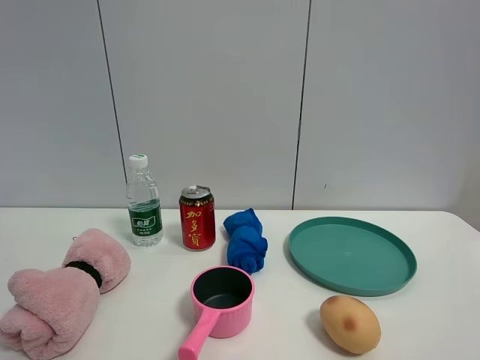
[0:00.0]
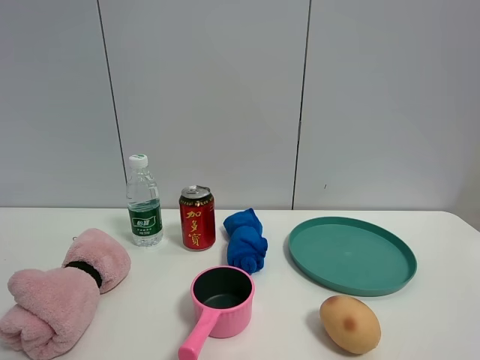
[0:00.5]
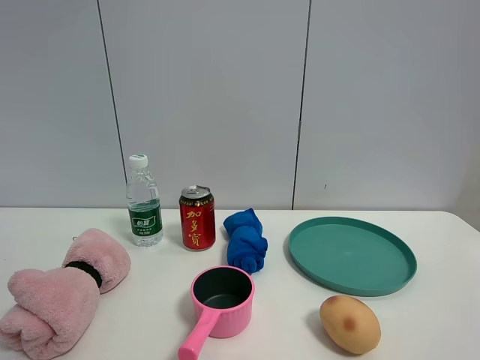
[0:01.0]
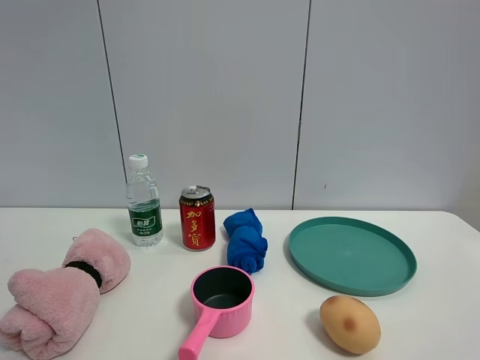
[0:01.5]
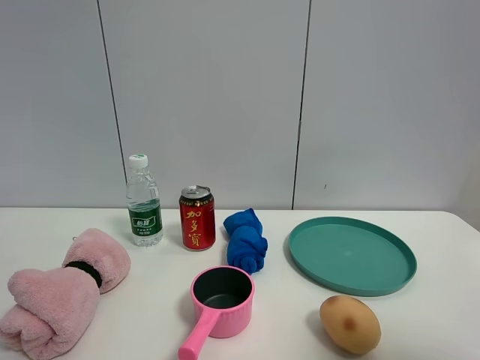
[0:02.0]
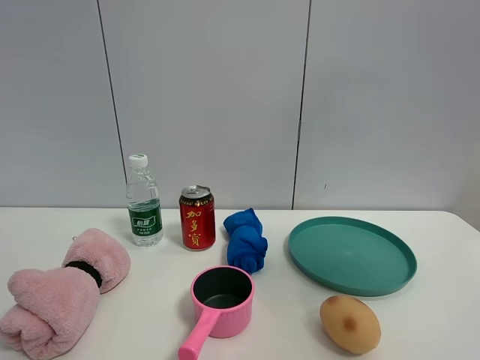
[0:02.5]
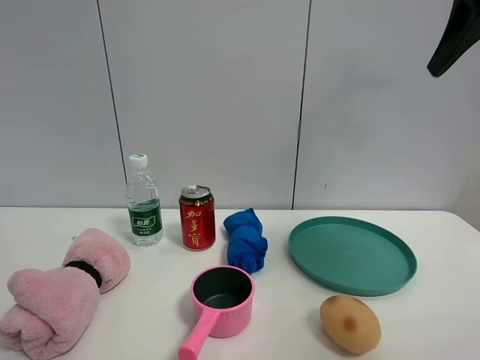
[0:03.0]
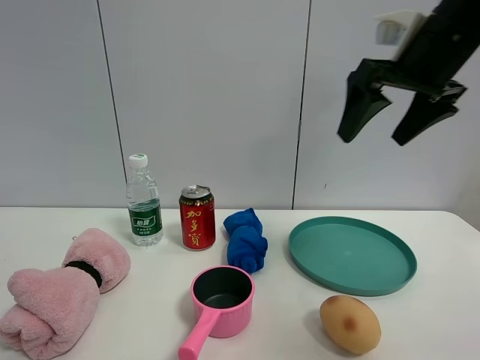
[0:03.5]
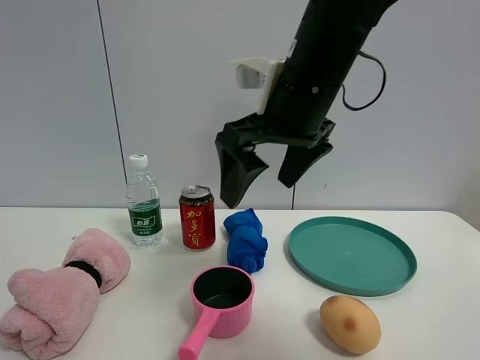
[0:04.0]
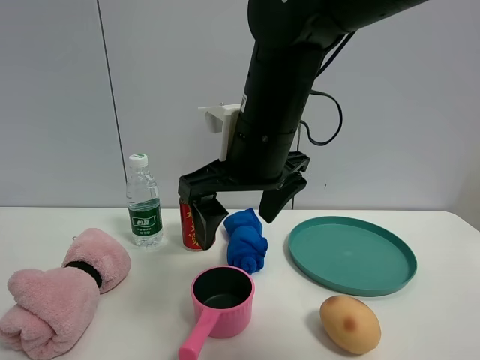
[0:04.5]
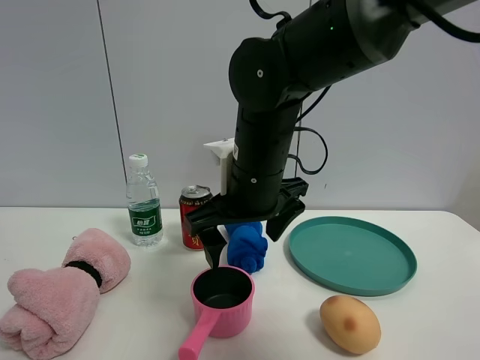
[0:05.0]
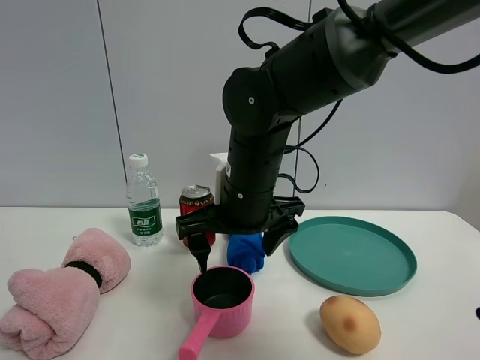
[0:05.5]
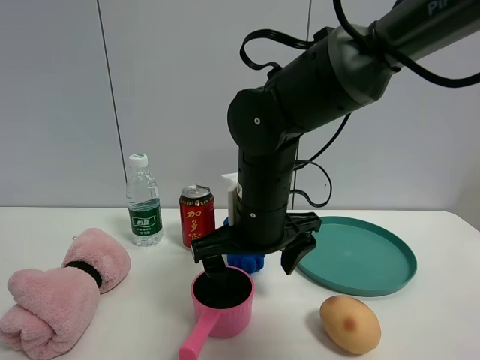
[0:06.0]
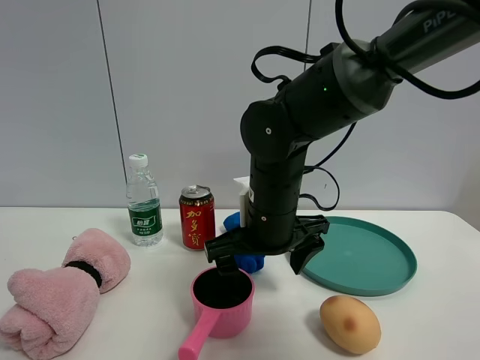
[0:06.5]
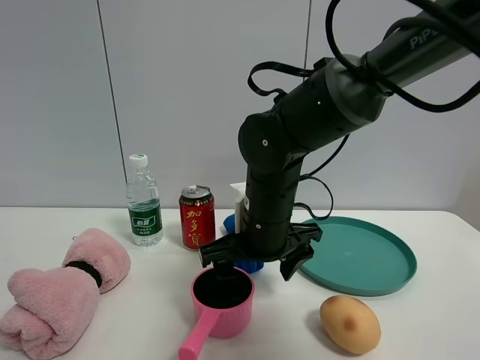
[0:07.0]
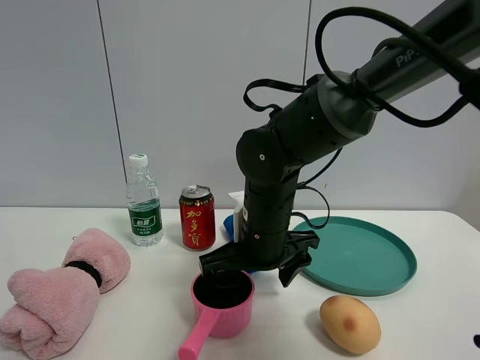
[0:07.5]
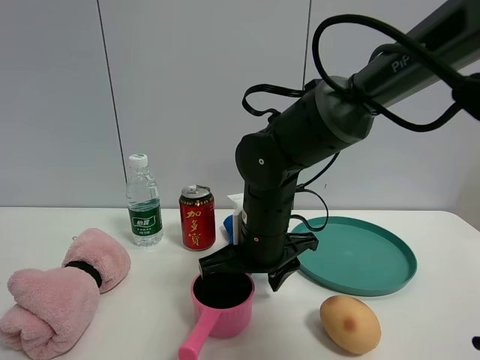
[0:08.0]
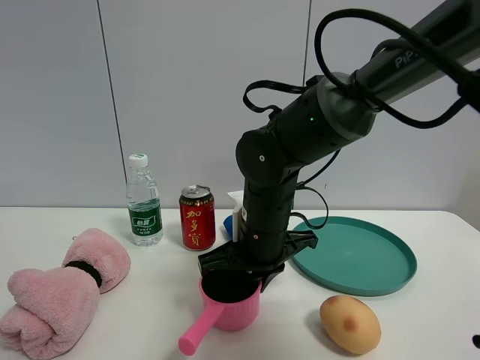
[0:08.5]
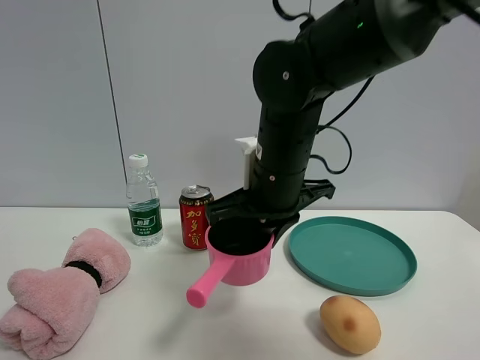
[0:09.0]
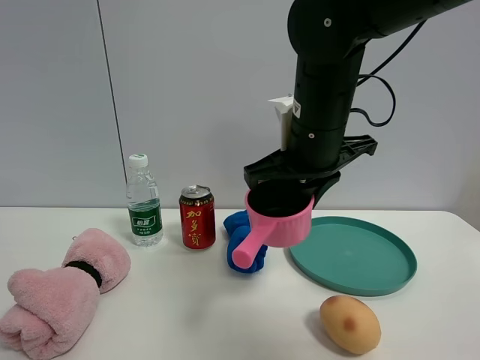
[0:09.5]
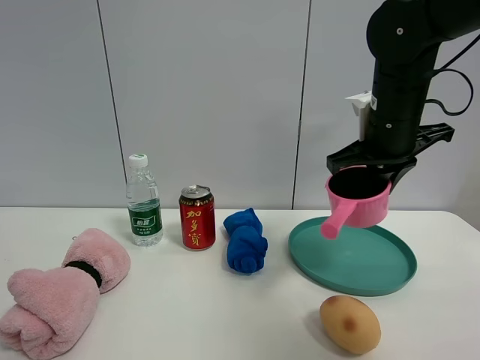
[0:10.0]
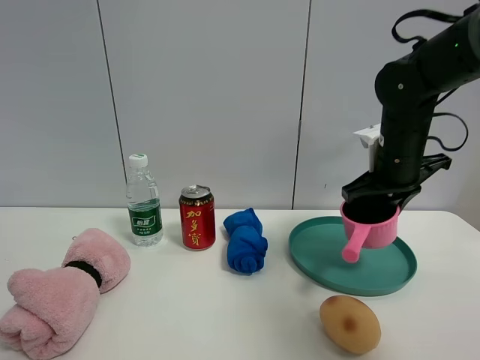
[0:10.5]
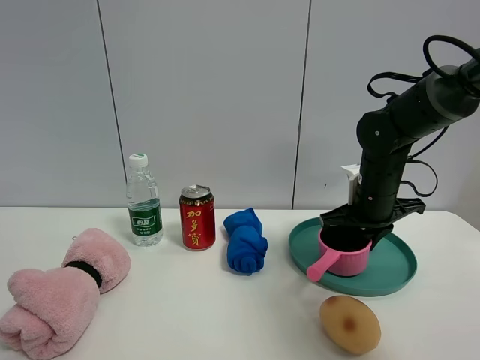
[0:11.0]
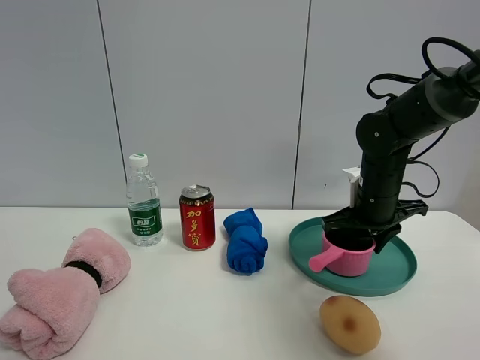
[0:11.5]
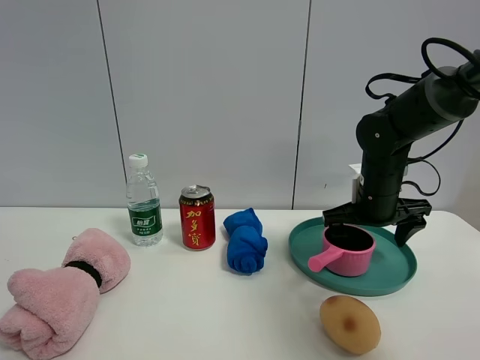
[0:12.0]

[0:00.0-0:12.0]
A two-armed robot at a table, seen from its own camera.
Task of the whole recording: the gripper move the object.
Step, 0:00.0 to 0:08.0: Grasp the pink pot with the right gripper.
Step, 0:08.5 to 0:12.0: Place the pink pot into the green plate with the right gripper.
0:00.0 to 0:02.0: The right gripper shifts roughly 10 cm upward and forward.
0:02.0 to 0:04.0: The right gripper heads to the left and forward, covering roughly 35 cm.
0:04.0 to 0:06.0: The right gripper shifts about 15 cm downward.
0:06.0 to 0:08.0: The right gripper closes.
0:08.0 to 0:10.0: The right gripper travels to the right and upward by approximately 20 cm, and closes.
0:10.0 to 0:12.0: The right gripper heads downward and forward, covering roughly 15 cm, and opens up.

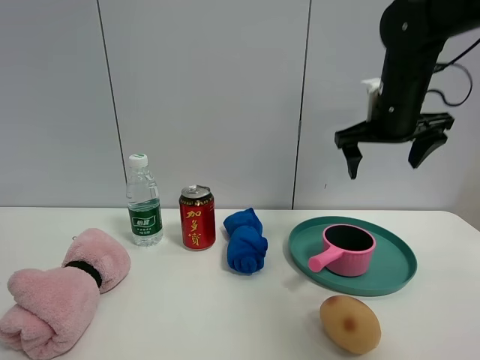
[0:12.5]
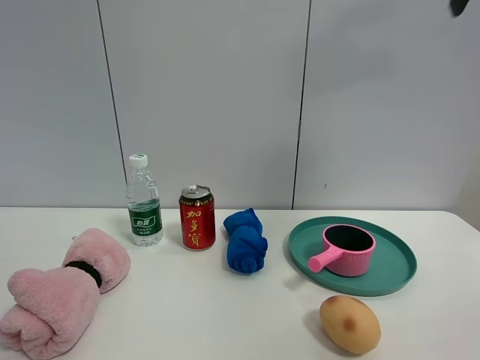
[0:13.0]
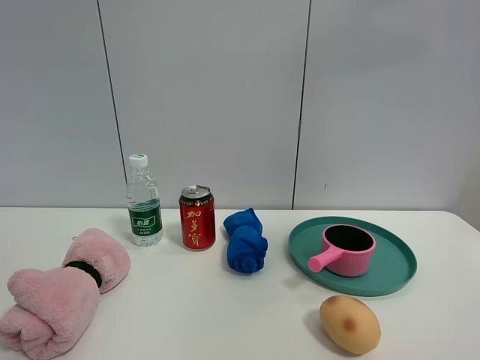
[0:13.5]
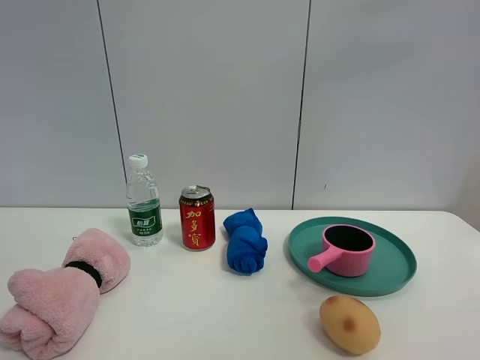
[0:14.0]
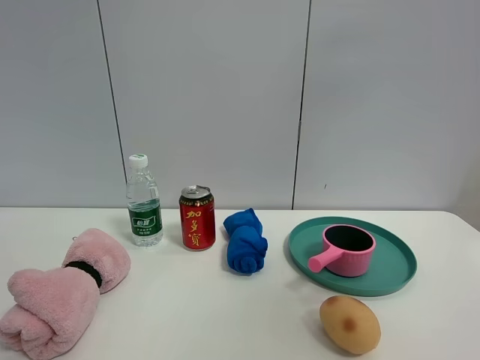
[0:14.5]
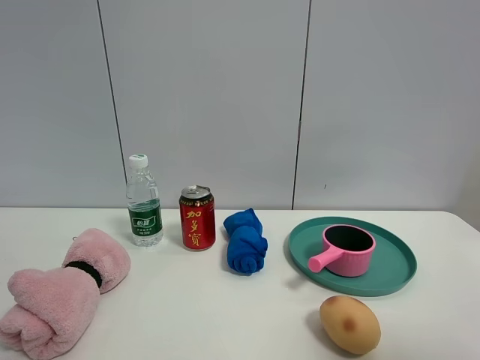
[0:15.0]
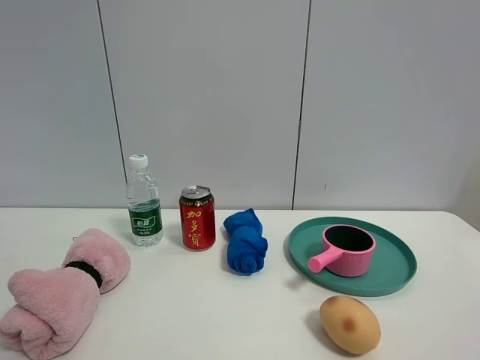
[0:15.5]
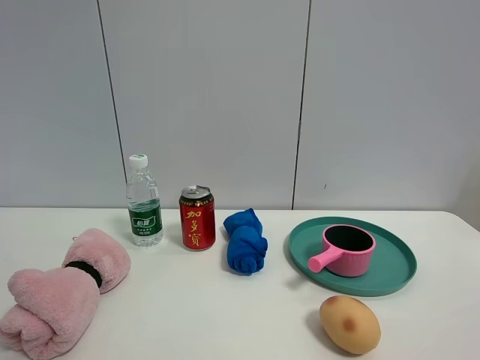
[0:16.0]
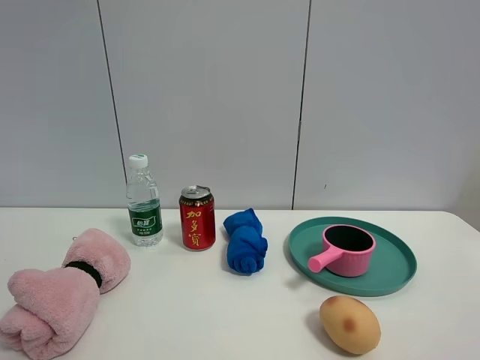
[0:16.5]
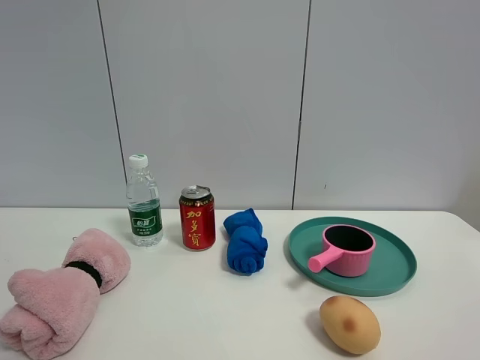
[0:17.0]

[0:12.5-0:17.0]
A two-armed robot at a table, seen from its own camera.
Task of the whole recording: the gripper move the object.
0:12.5 to 0:14.5: The right gripper travels backward and upward by approximately 40 cm.
0:14.5 to 0:17.0: The right gripper moves downward, about 25 cm.

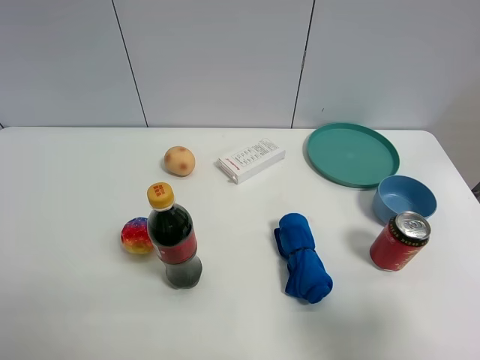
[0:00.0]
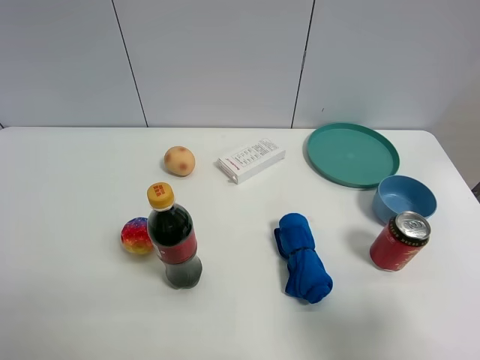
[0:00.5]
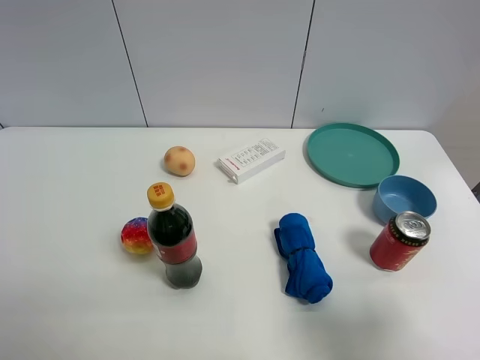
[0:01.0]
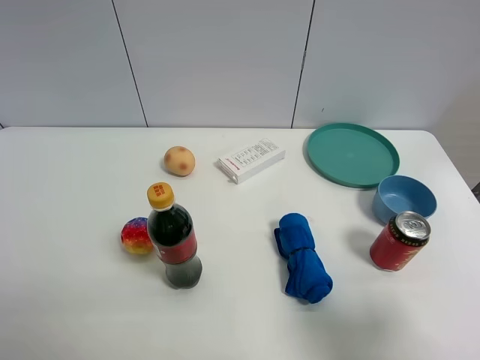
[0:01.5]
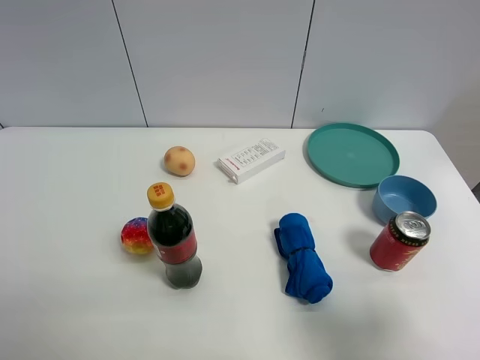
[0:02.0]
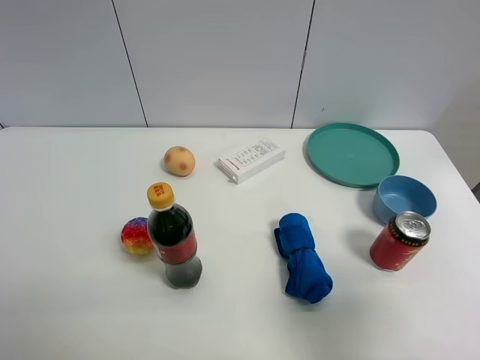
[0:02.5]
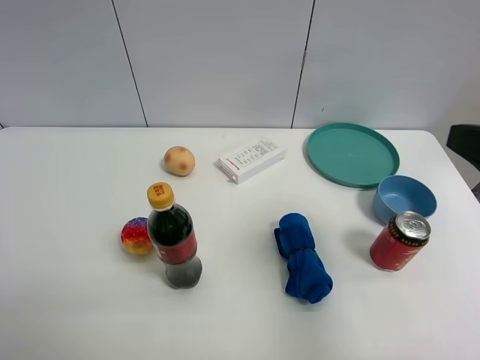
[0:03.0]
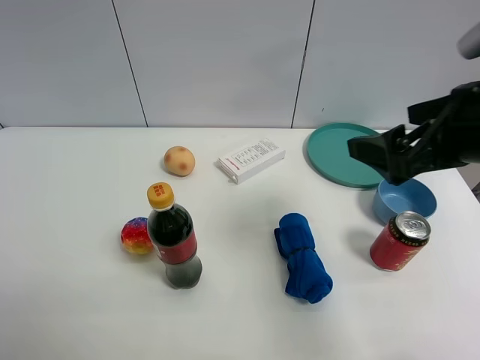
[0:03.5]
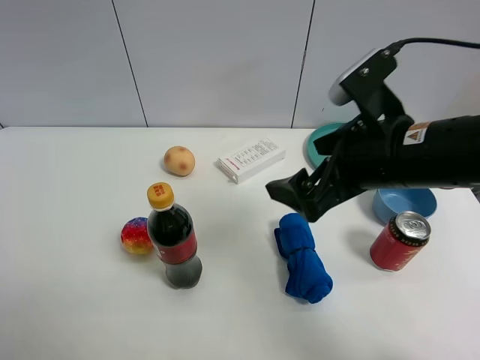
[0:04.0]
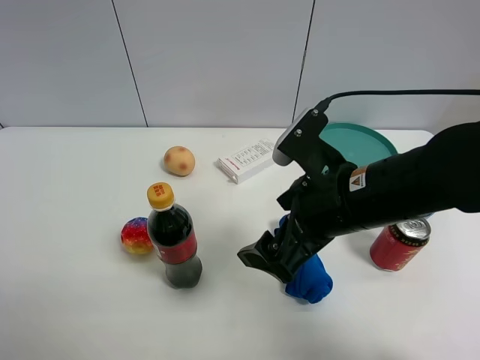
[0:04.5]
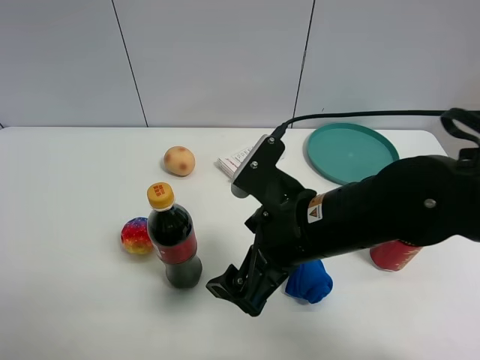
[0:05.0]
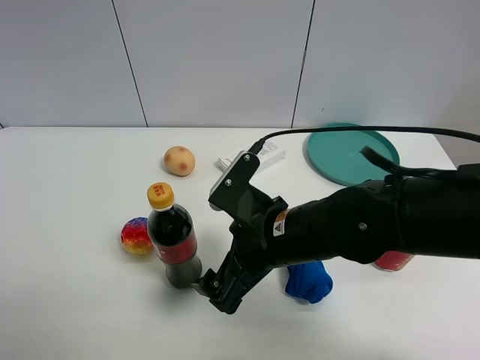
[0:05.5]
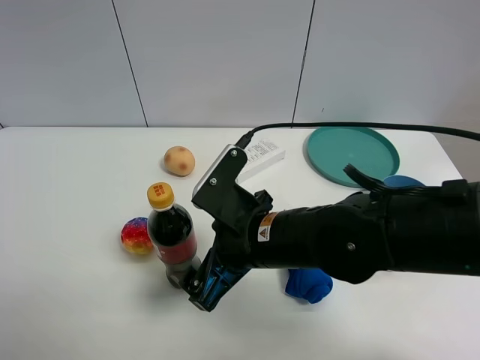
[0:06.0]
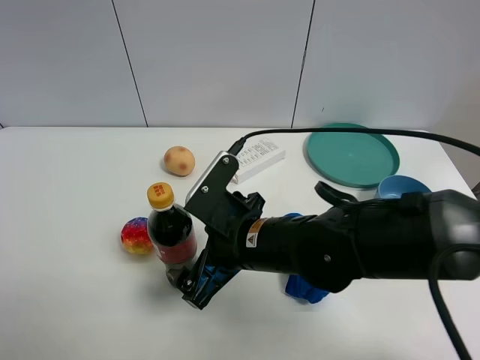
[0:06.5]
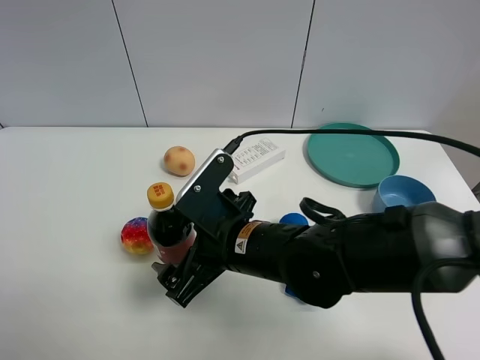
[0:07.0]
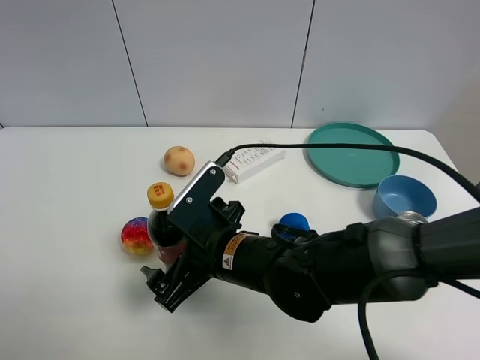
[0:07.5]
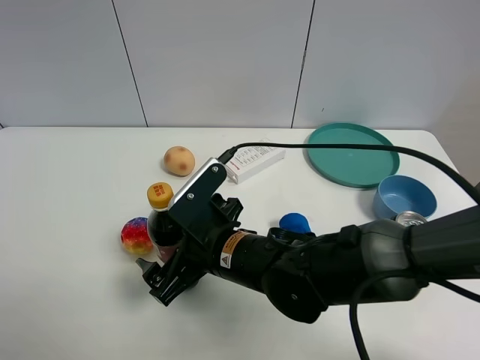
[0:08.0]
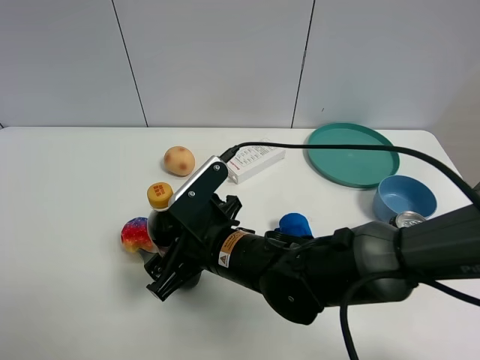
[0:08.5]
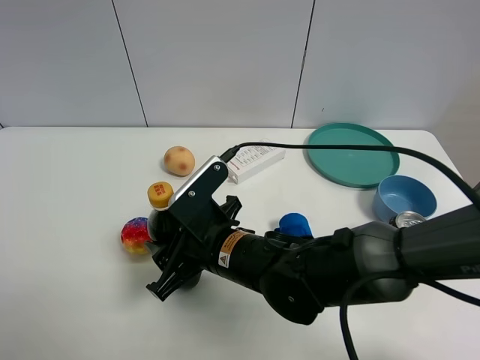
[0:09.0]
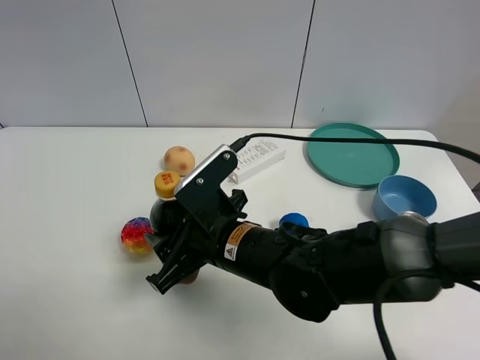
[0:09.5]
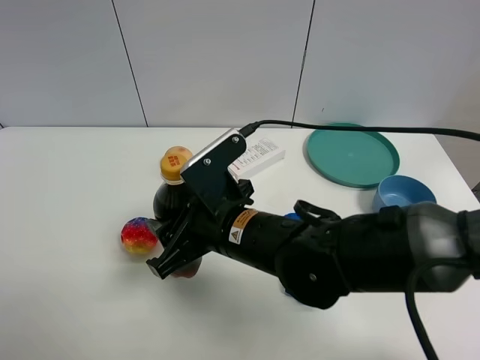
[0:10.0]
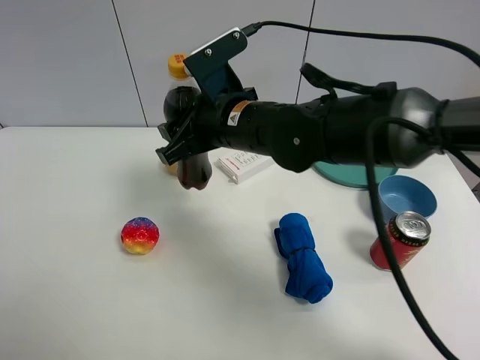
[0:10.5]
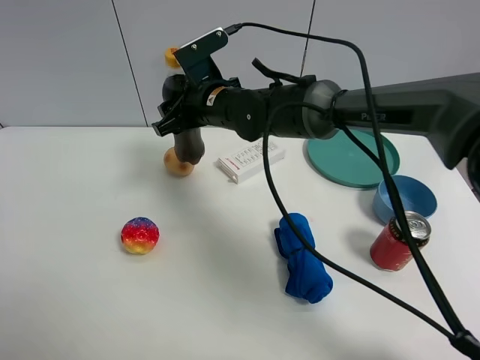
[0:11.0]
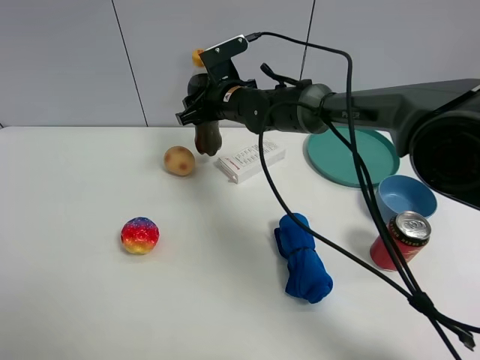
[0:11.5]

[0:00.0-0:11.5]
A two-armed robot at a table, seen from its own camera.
Task of the whole recording: the gripper move the object.
Step, 0:00.0 to 0:08.5: Grasp the coke with the right gripper.
0:00.0 to 0:02.0: Both grippers stay put.
0:02.0 to 0:04.0: The right gripper is displaced forward and to the left by about 25 cm.
0:04.0 to 0:06.0: The right gripper shifts approximately 15 cm to the left and downward.
0:06.0 to 0:07.5: The right gripper ends up about 5 cm from where it was.
0:07.5 to 0:09.5: The right gripper closes.
0:09.5 to 0:11.5: The right gripper travels forward by approximately 25 cm.
